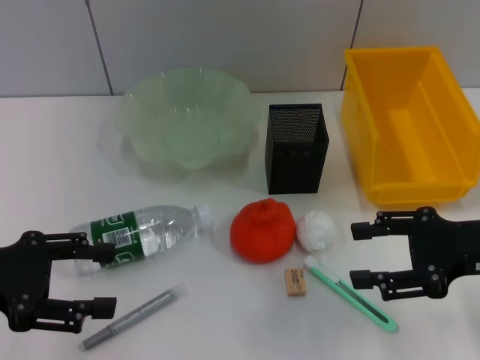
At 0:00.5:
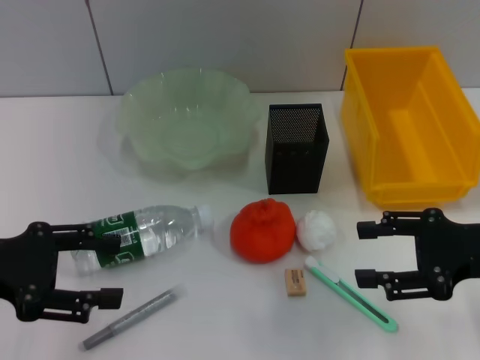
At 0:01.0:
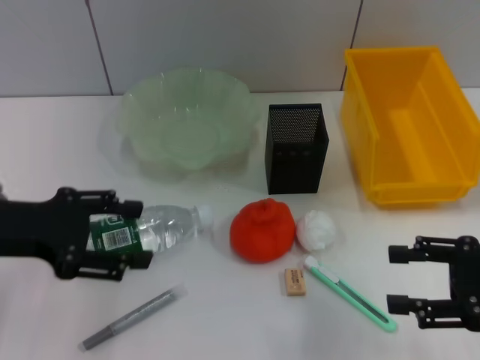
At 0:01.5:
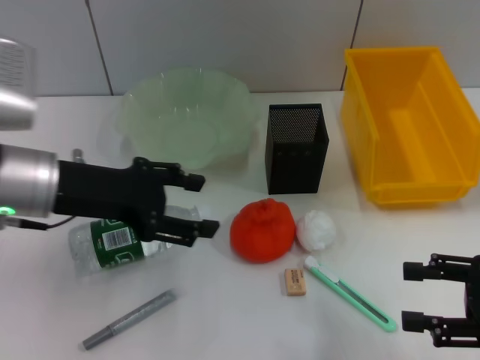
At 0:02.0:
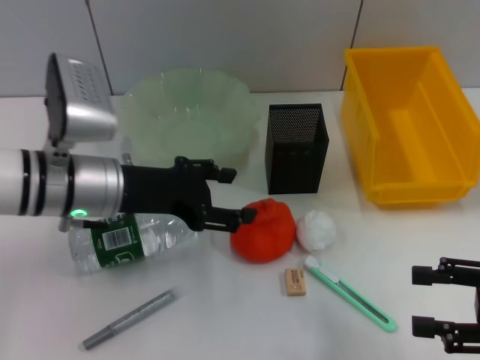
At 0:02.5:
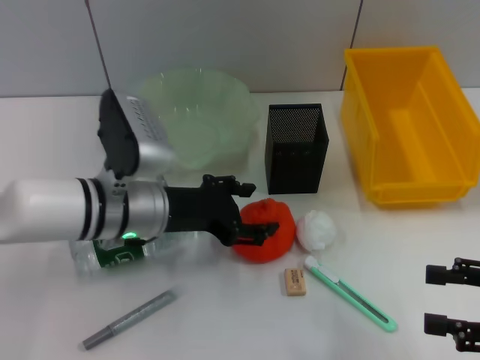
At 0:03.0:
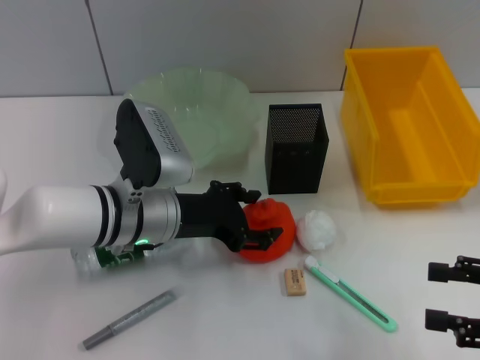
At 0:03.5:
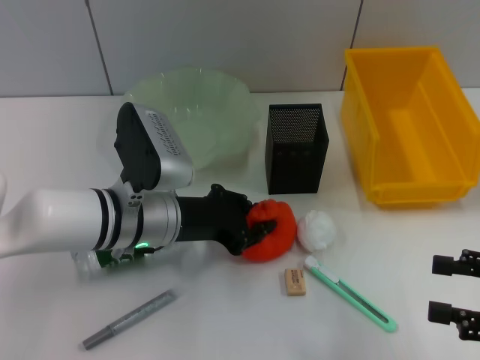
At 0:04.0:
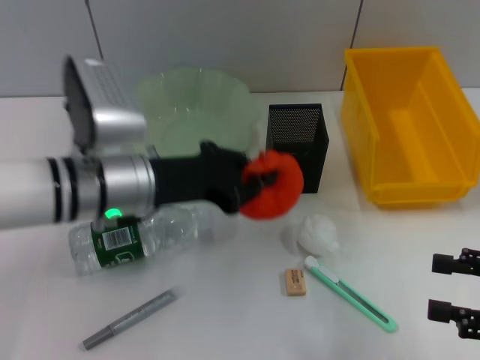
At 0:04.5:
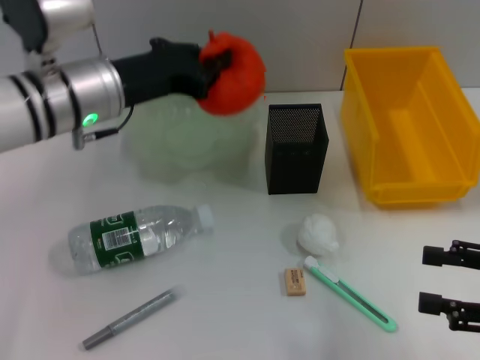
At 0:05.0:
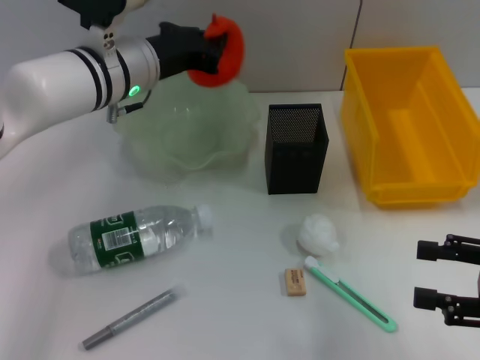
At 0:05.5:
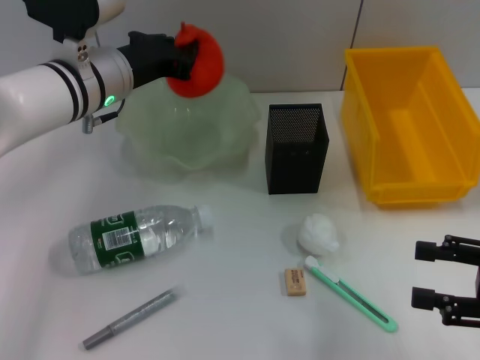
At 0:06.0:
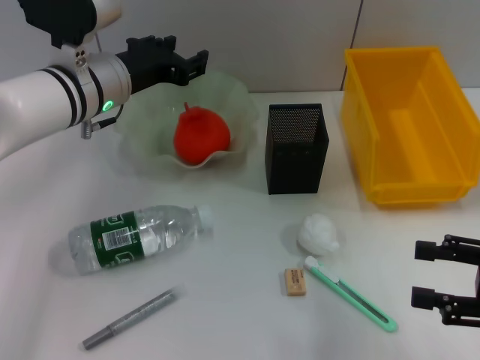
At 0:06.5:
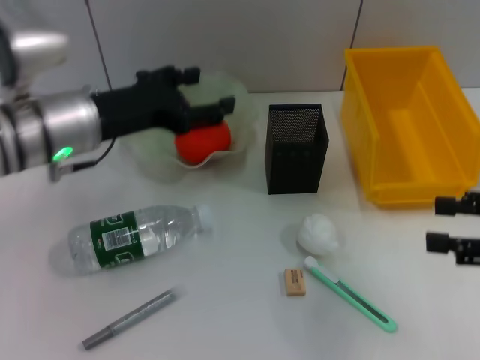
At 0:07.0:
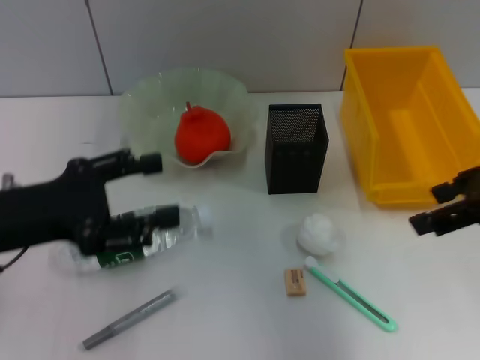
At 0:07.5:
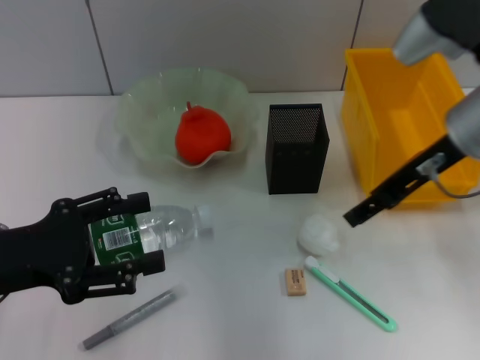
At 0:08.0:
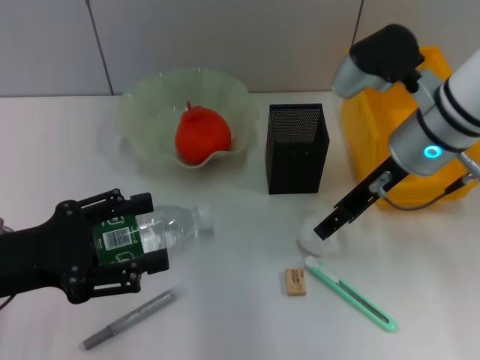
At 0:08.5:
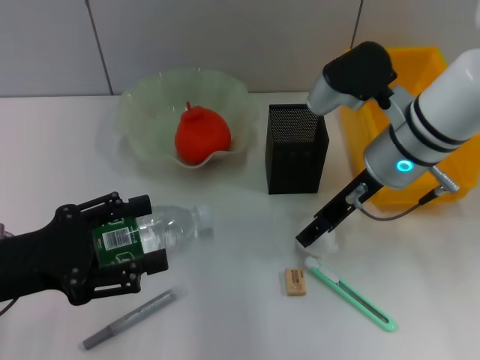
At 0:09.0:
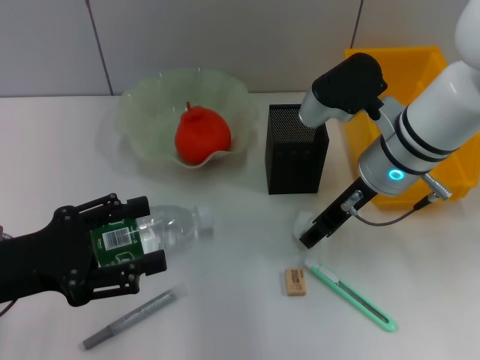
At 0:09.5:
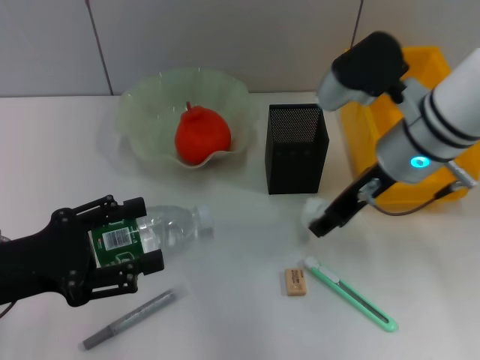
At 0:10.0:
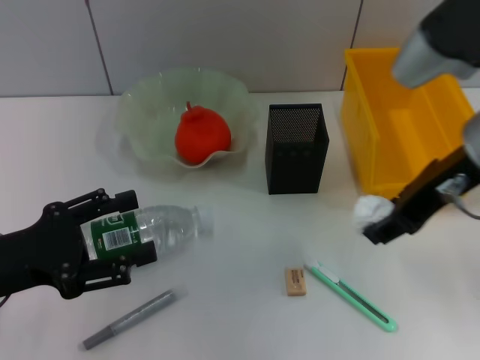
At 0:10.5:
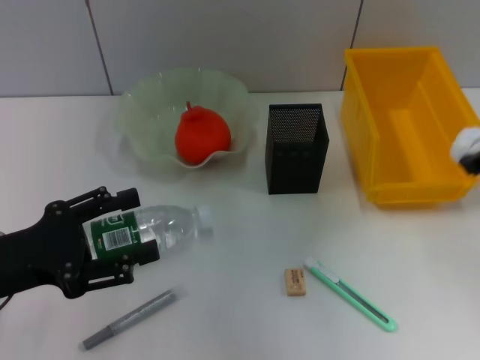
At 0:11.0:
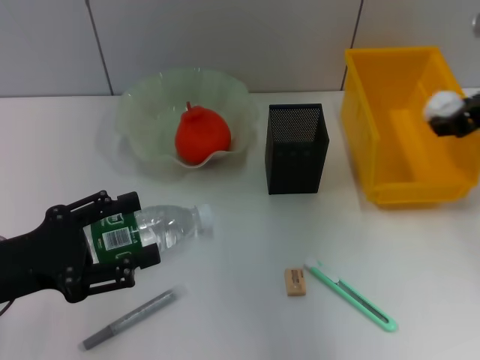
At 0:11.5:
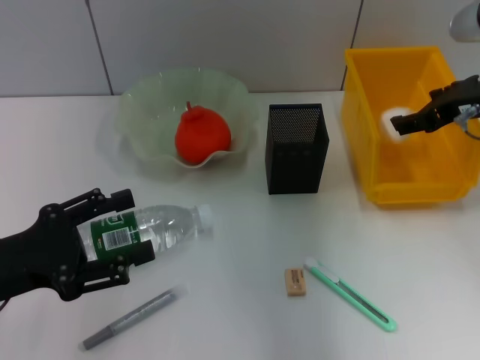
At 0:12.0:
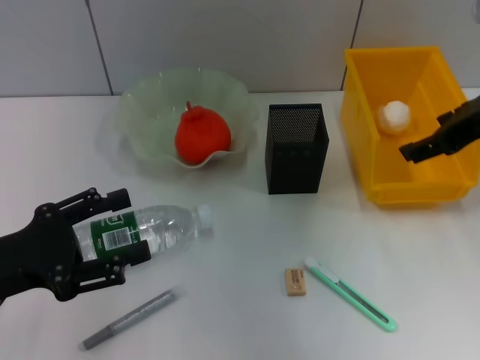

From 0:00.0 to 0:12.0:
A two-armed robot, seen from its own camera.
Step, from 0:00.0 to 0:03.0: Grab the orange with the left hand.
Step, from 0:03.5 to 0:05.5: Place the orange into the fruit bowl with the left hand.
Step, from 0:06.0 to 0:08.5: Grab the paper ball with the right hand.
Step, from 0:09.0 to 0:11.5: Place the paper ball into the trash can with the right hand.
From 0:00.0 to 0:02.0: The right gripper travels backward by some 5 cm. Meanwhile the left gripper goes some 15 cm to the right and forward.
From 0:02.0 to 0:04.0: The left gripper closes.
From 0:04.0 to 0:06.0: The left gripper goes about 10 cm forward, and opens up.
From 0:06.0 to 0:08.0: The left gripper shifts some 20 cm backward and to the left, and opens. Meanwhile the right gripper heads to the left and forward, covering roughly 25 cm.
From 0:08.0 to 0:10.0: The right gripper travels upward and backward by about 10 cm.
From 0:10.0 to 0:12.0: The right gripper heads to the right, covering roughly 5 cm, and opens.

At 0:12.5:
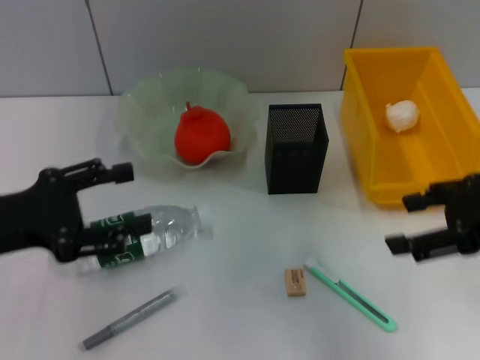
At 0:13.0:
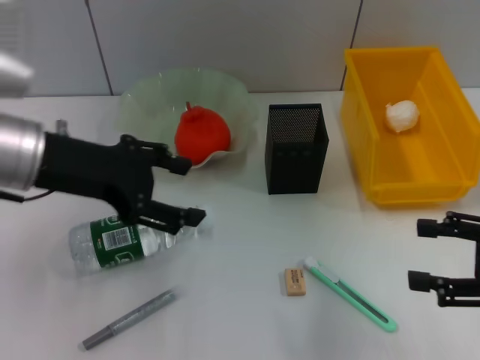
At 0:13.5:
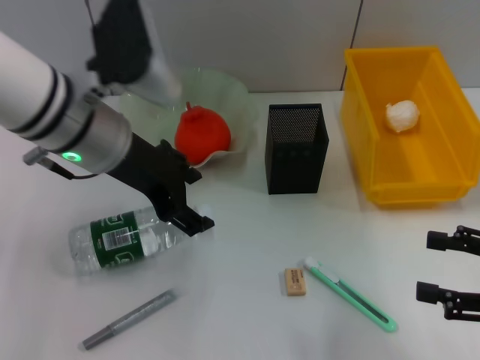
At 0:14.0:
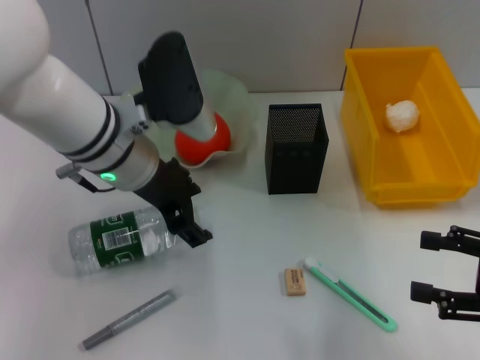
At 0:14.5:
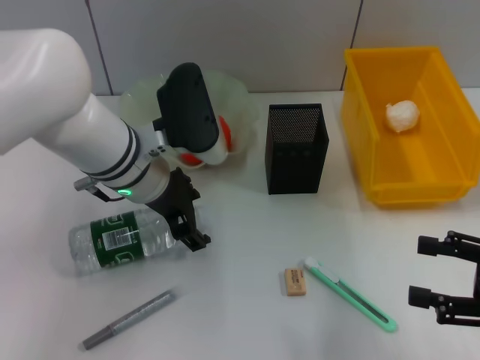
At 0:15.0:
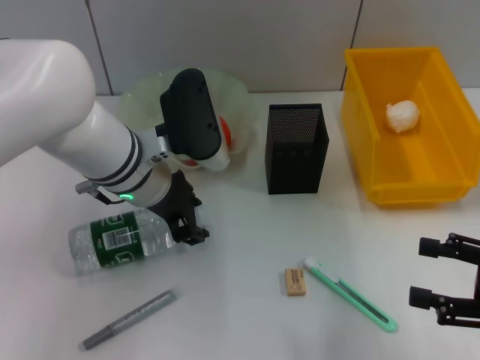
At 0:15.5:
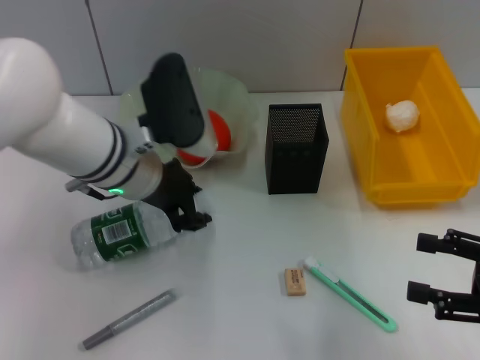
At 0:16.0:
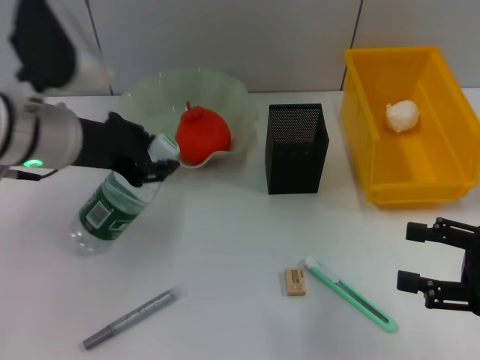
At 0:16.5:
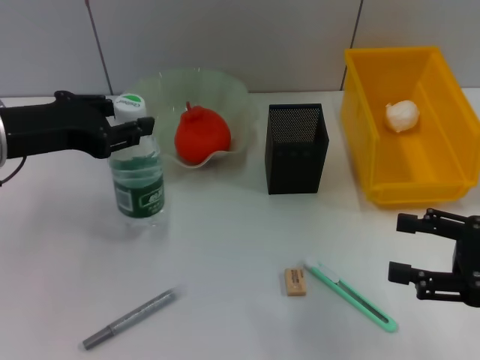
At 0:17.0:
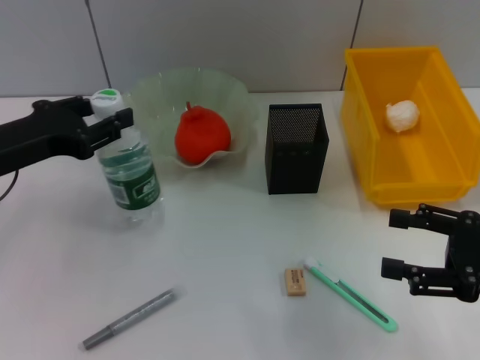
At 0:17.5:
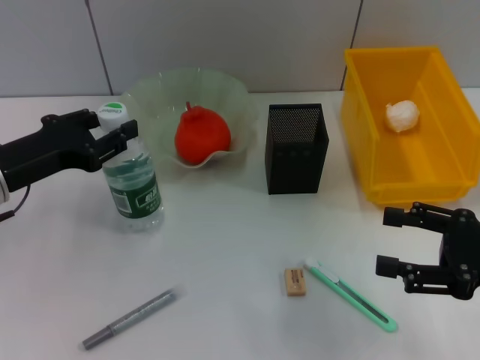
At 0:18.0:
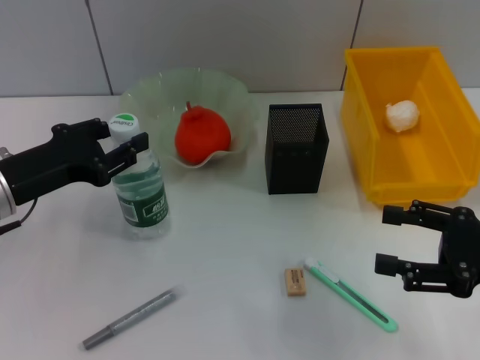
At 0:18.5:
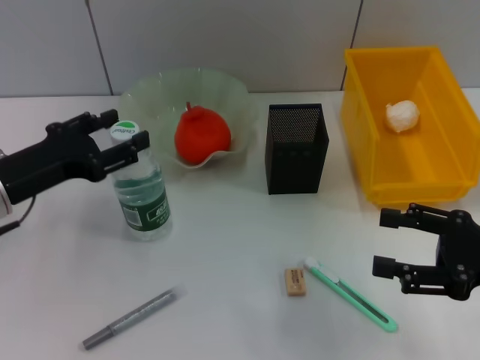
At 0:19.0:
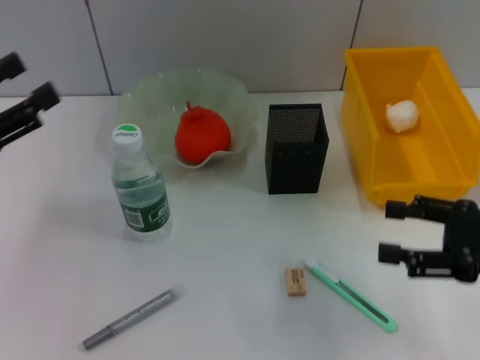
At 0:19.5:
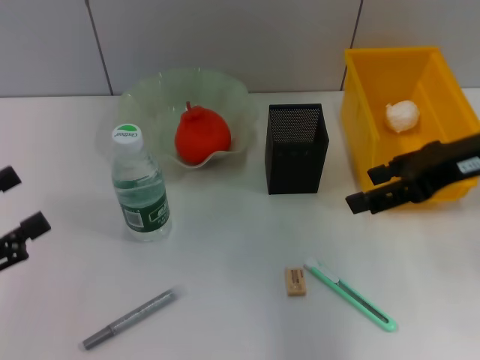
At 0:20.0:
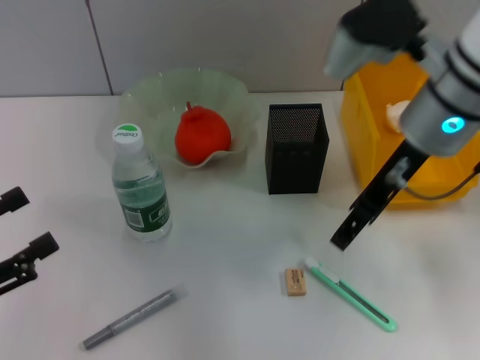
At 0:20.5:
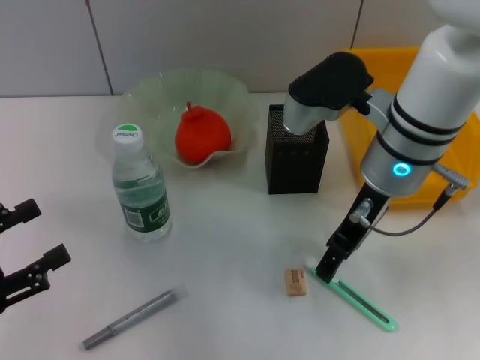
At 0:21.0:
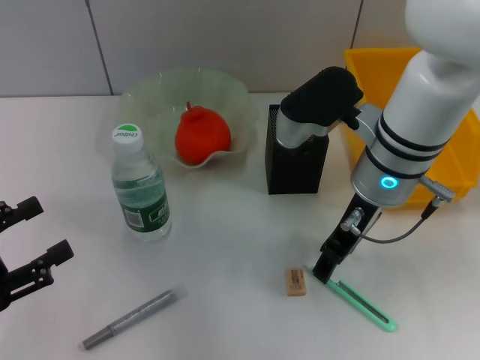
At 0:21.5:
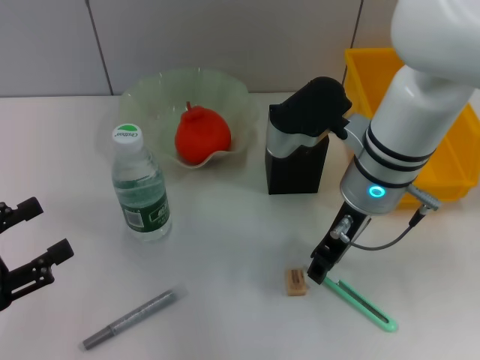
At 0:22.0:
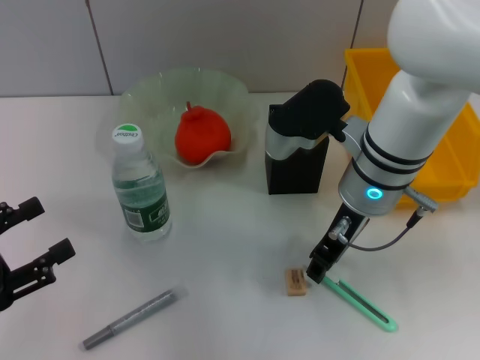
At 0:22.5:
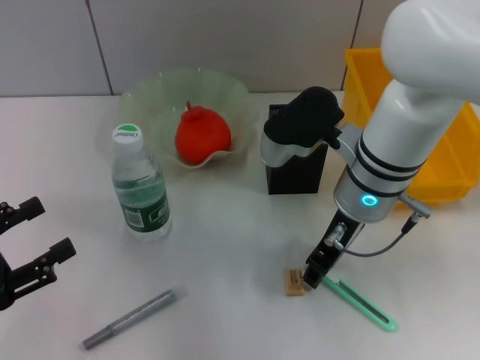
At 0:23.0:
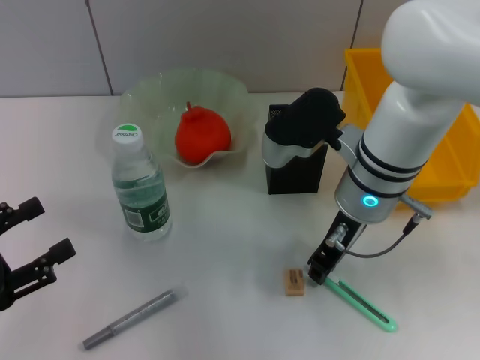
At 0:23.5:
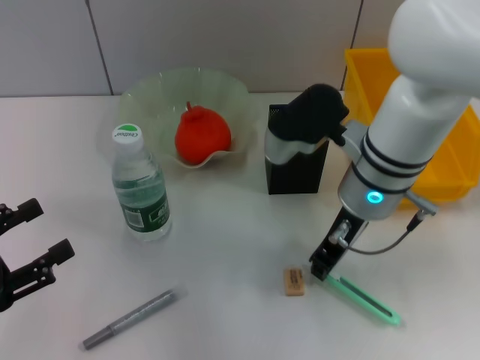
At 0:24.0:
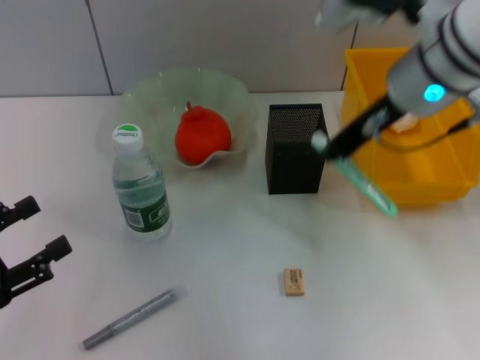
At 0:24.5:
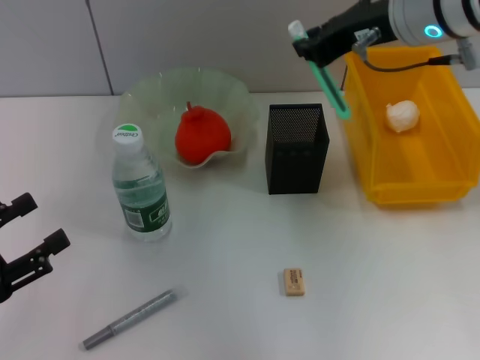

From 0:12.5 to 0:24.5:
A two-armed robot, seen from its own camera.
Step, from 0:12.5 to 0:15.0: Grab the water bottle with the left hand.
Step, from 0:15.5 to 0:18.0: Place the water bottle on the table with the left hand.
Step, from 0:19.0 to 0:23.0: Grab the blue utility knife with the right hand.
From 0:12.5 to 0:14.5: The right gripper heads downward and backward, covering roughly 10 cm, while the left gripper is displaced to the right and forward by about 20 cm.
From 0:14.5 to 0:16.5: The left gripper is displaced to the left by about 15 cm, and closes.
From 0:16.5 to 0:18.5: The left gripper goes roughly 10 cm downward.
From 0:18.5 to 0:20.5: The right gripper goes some 20 cm to the left and forward. Meanwhile the left gripper moves backward and to the left, some 15 cm.
From 0:20.5 to 0:22.5: The right gripper closes up.
From 0:22.5 to 0:24.5: The right gripper travels upward by some 15 cm, and closes up.

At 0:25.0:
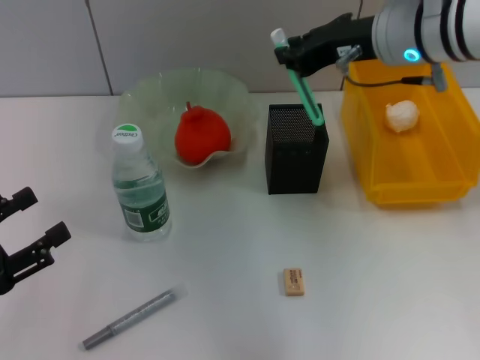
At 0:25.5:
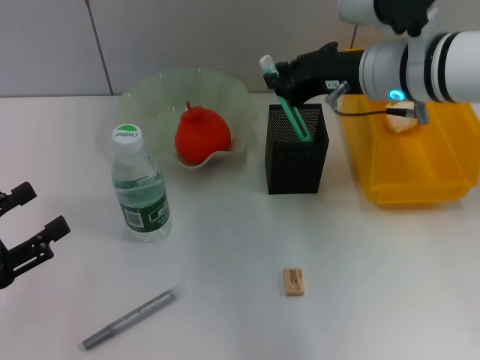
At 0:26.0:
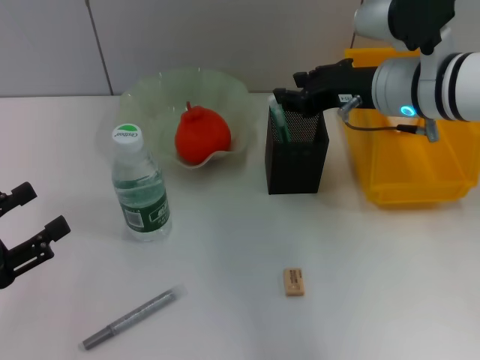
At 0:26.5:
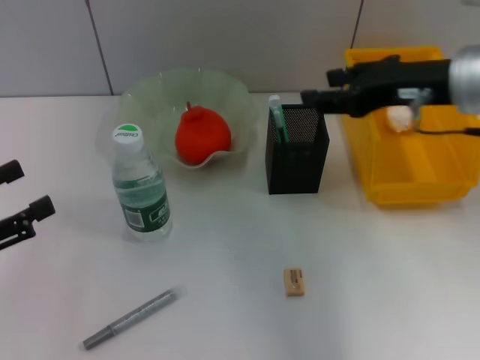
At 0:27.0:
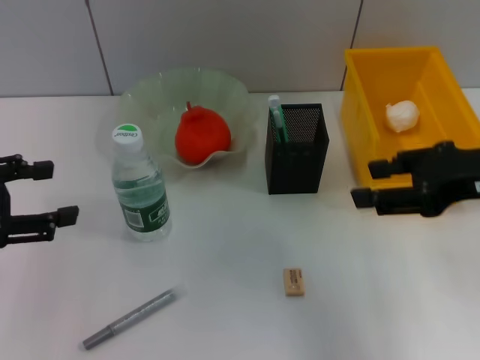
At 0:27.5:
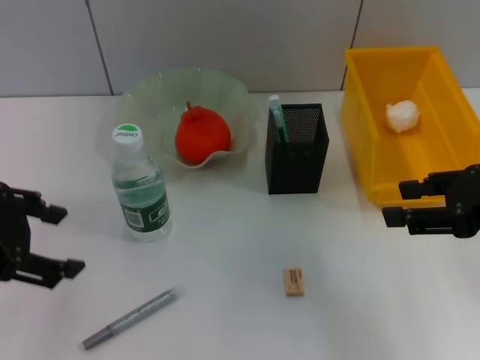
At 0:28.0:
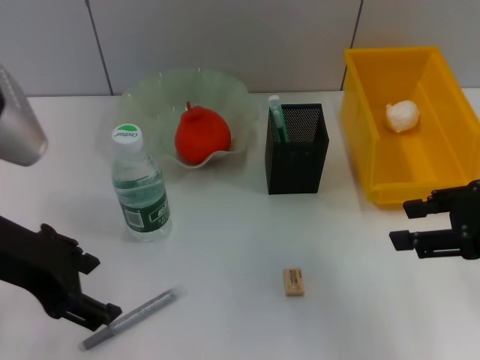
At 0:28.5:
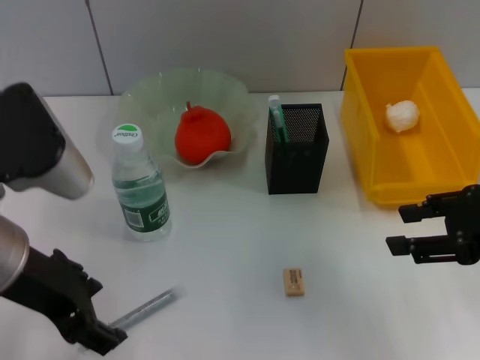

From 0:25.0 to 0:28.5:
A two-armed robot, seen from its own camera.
From 0:25.0 to 0:27.0: The left gripper moves upward and forward, approximately 10 cm; the right gripper moves backward and to the right, some 15 cm, and opens its fingers.
From 0:27.0 to 0:28.5: The left gripper moves to the right, approximately 15 cm.
